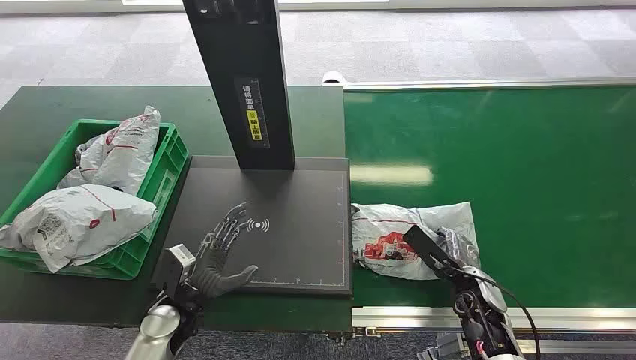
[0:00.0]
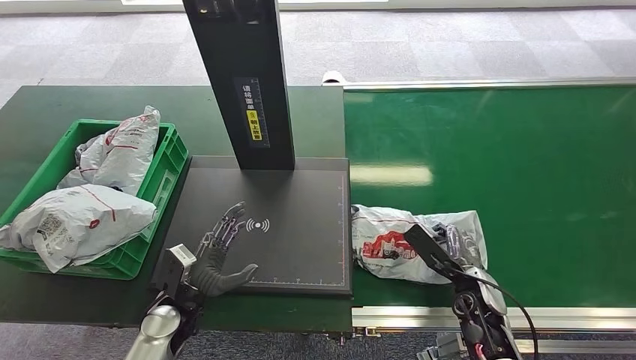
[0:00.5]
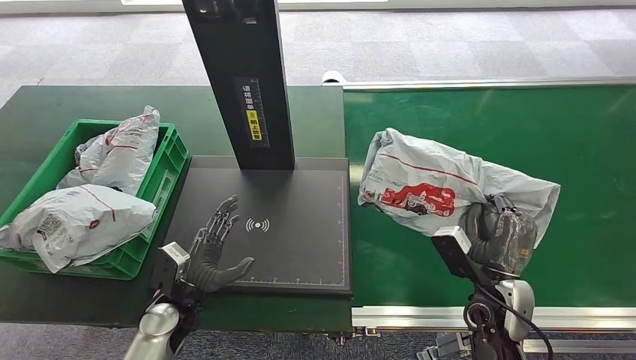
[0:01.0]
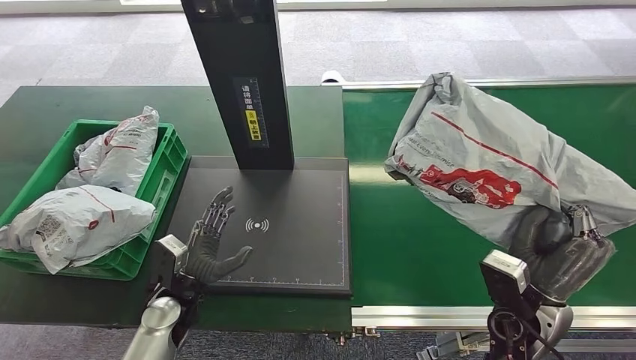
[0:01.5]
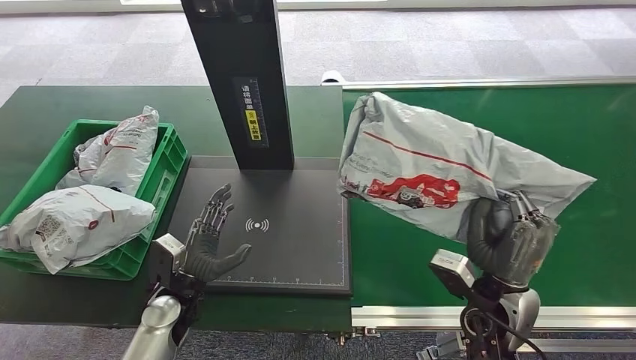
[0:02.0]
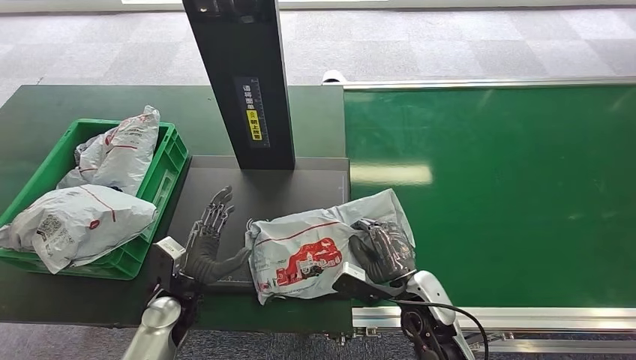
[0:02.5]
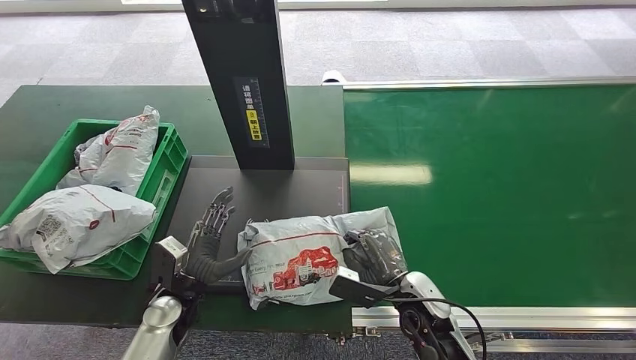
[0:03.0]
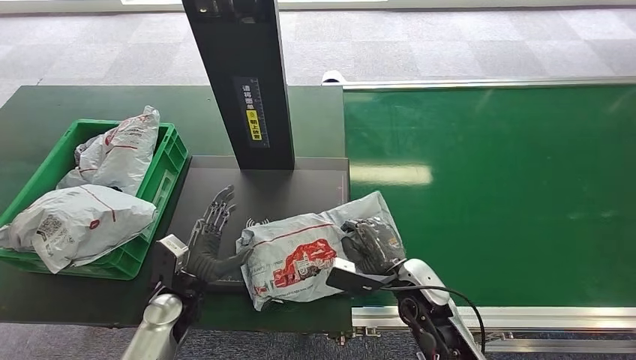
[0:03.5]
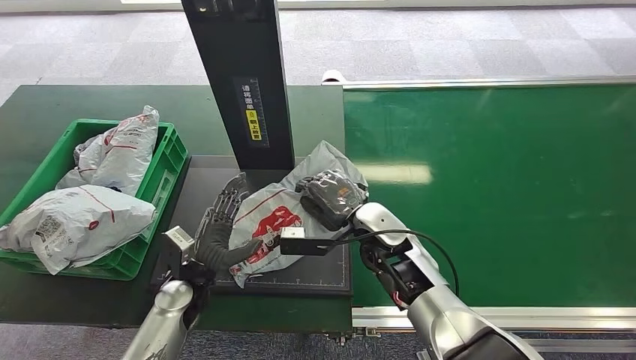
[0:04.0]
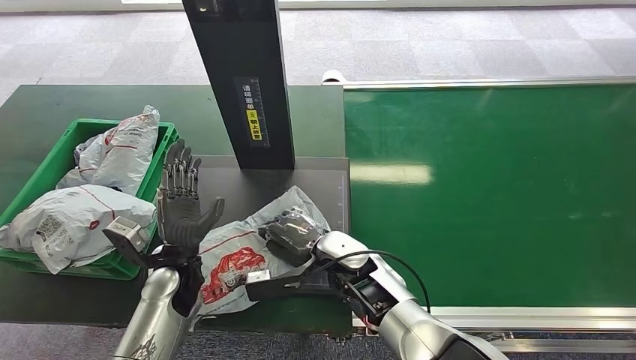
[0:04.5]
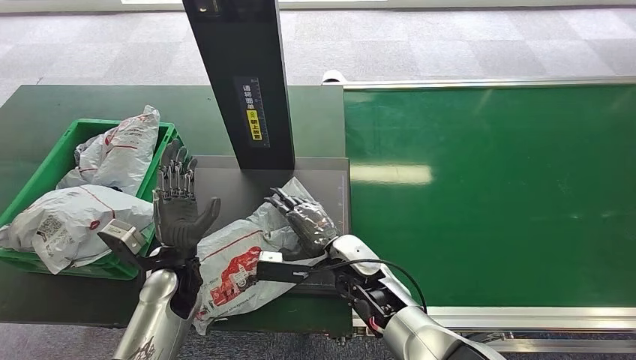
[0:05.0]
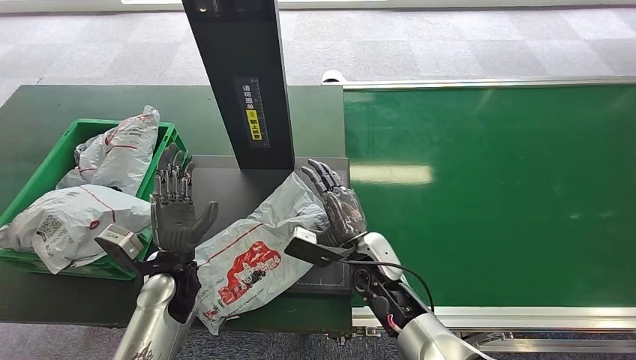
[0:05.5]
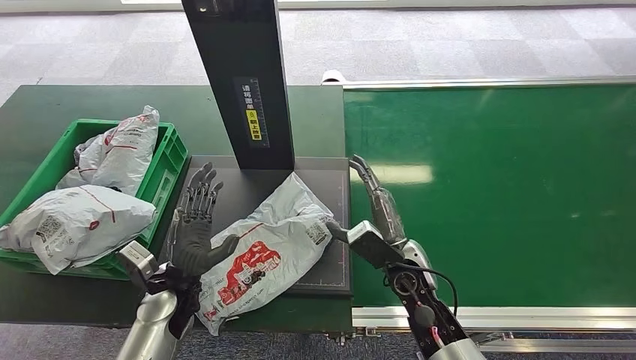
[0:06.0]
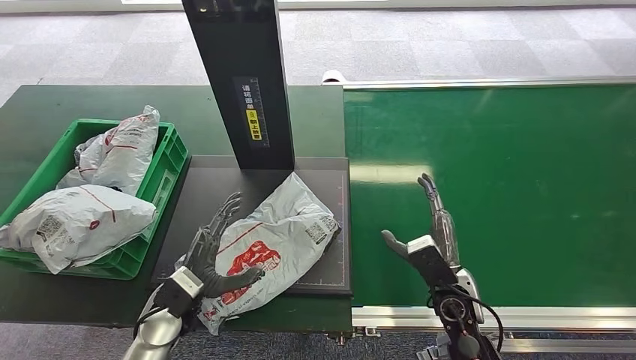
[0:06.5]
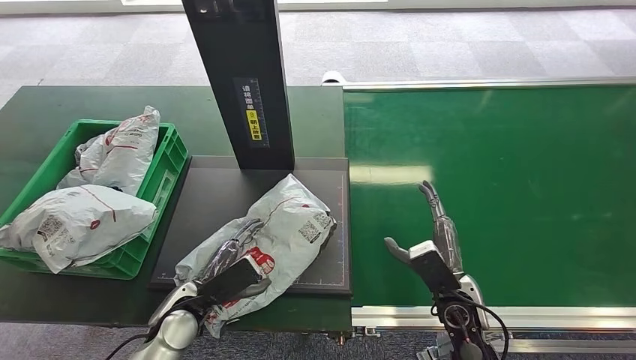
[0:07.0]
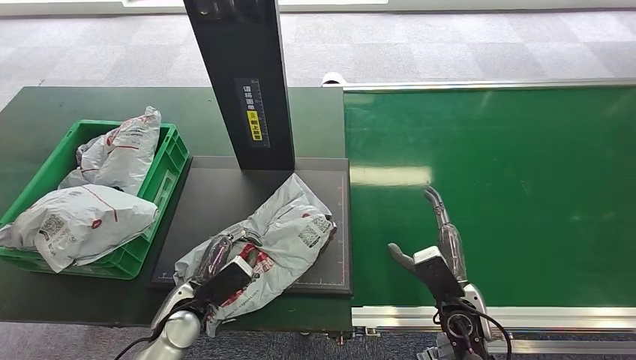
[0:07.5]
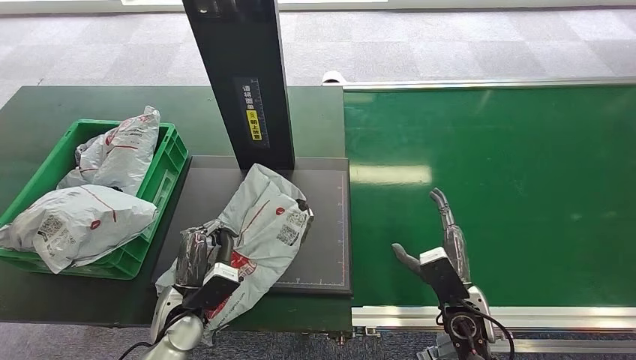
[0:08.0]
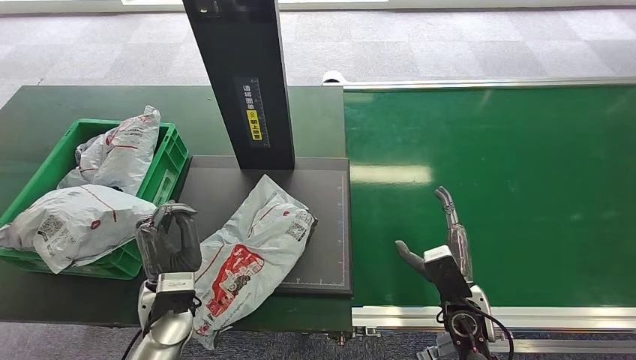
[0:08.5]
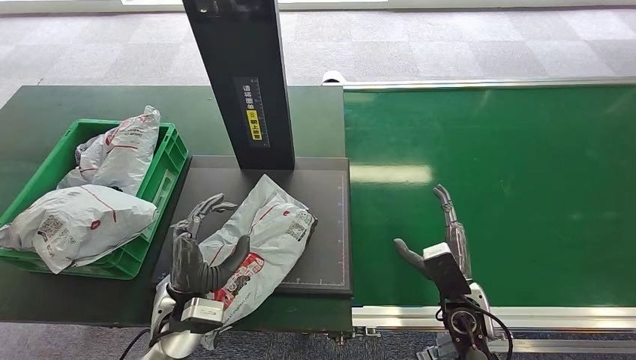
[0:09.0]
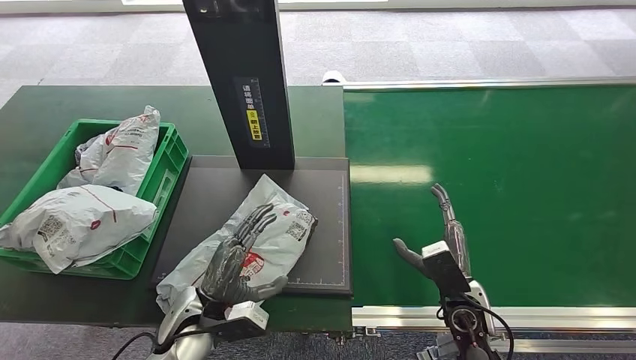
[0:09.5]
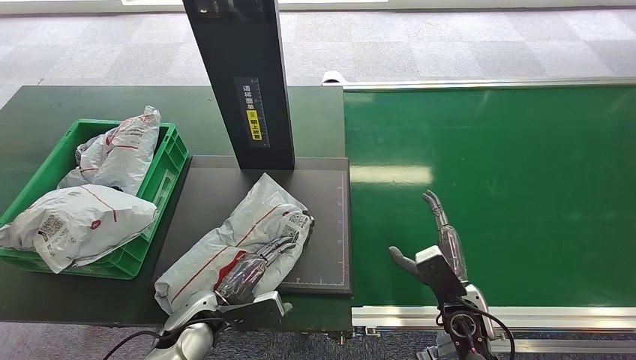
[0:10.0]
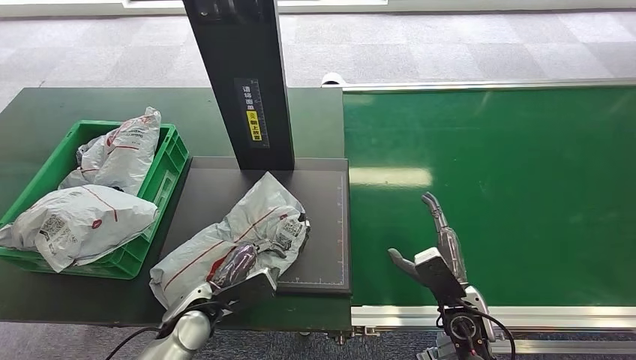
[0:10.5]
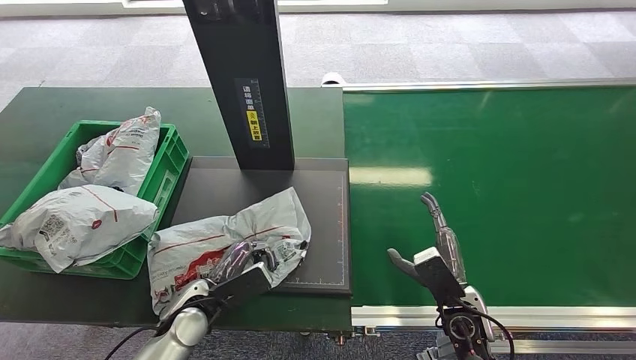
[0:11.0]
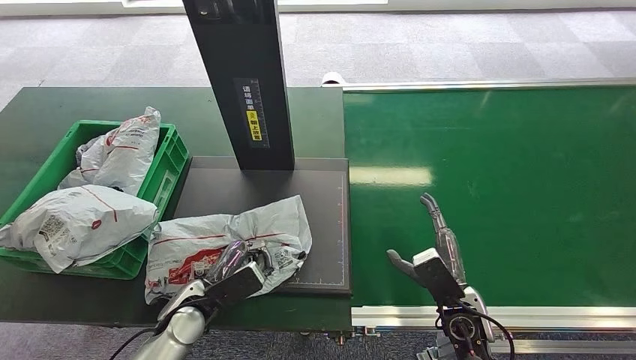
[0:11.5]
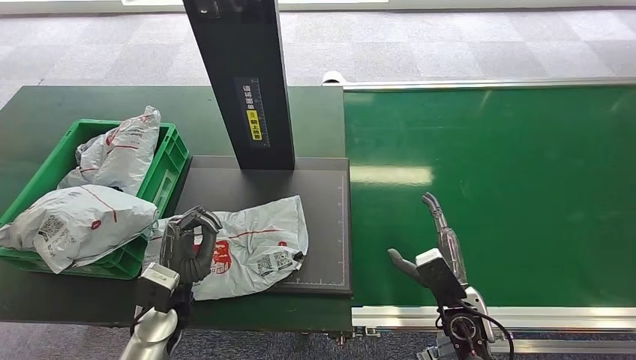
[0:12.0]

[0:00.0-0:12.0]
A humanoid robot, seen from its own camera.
Step, 0:00.0 to 0:01.0: Pick up the package from the conveyor belt.
Step, 0:01.5 to 0:04.0: Place the package onto the inbound machine.
0:04.0 to 0:06.0: The right hand shifts roughly 5 cm backward.
0:06.0 to 0:08.0: The right hand is displaced to the right and backward by approximately 10 cm.
0:10.0 to 0:12.0: The left hand changes place by approximately 5 cm.

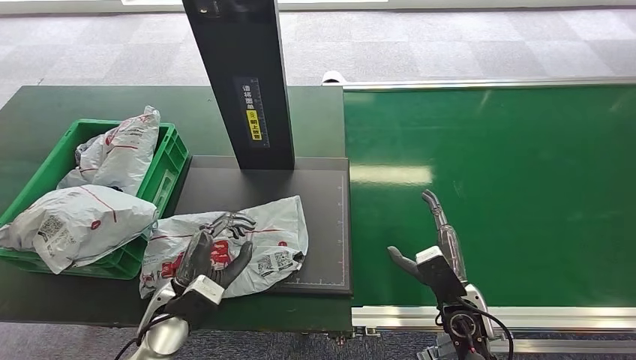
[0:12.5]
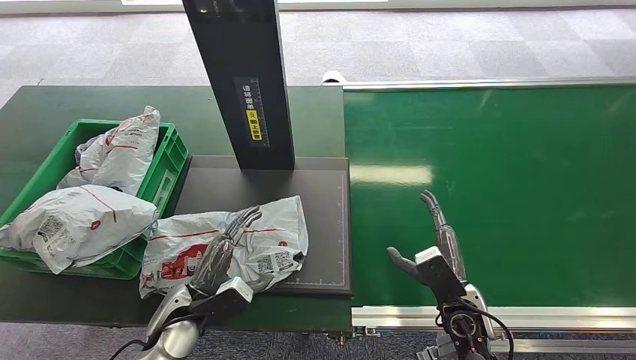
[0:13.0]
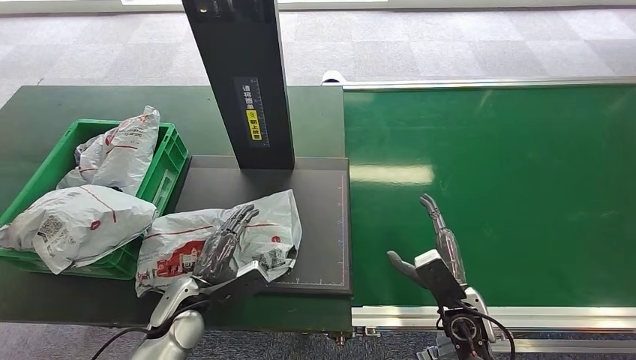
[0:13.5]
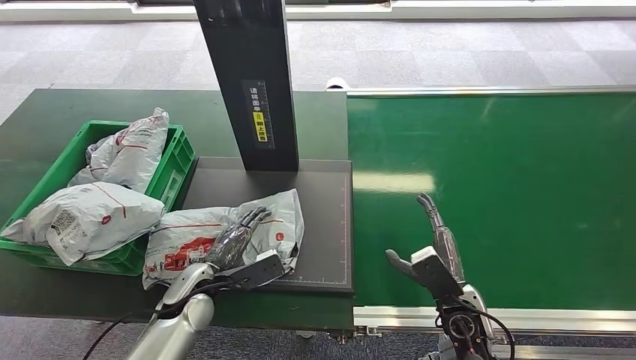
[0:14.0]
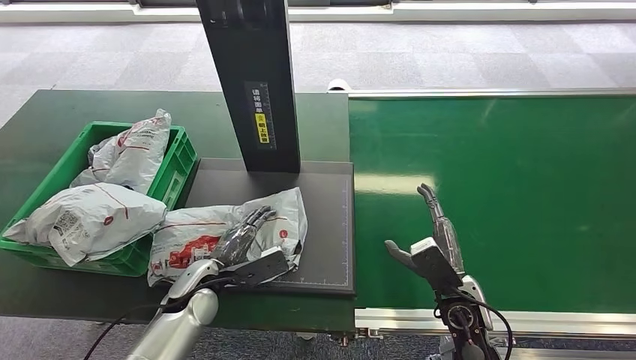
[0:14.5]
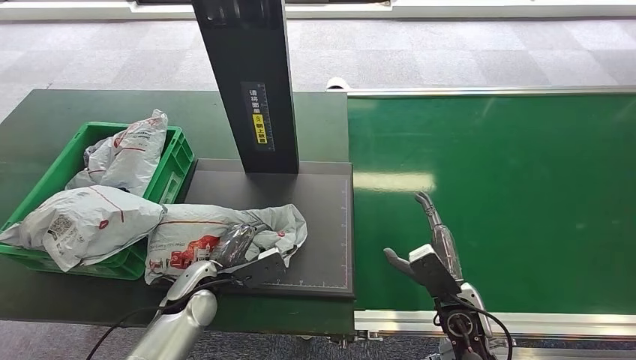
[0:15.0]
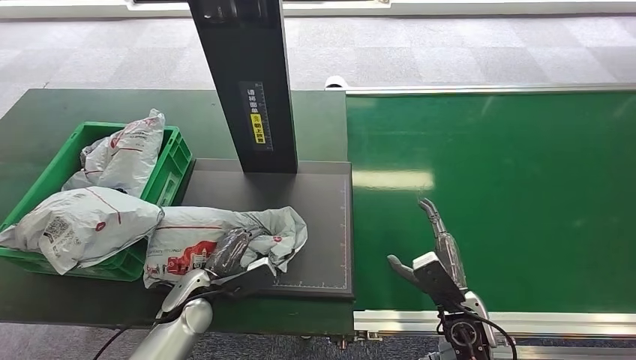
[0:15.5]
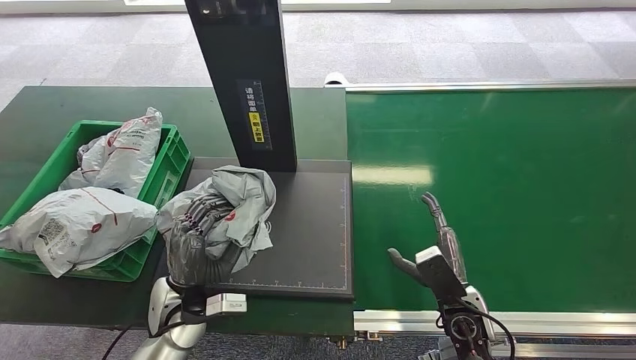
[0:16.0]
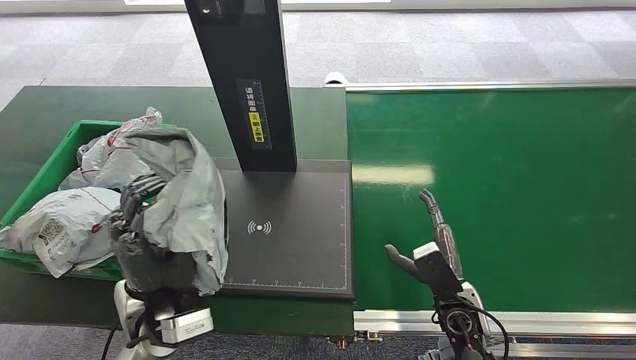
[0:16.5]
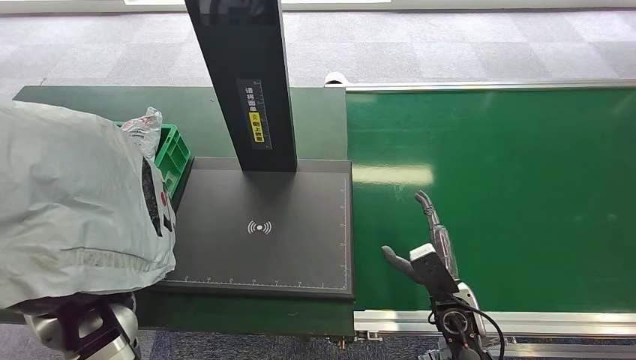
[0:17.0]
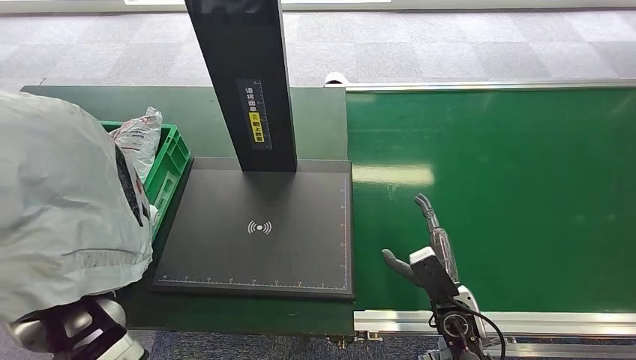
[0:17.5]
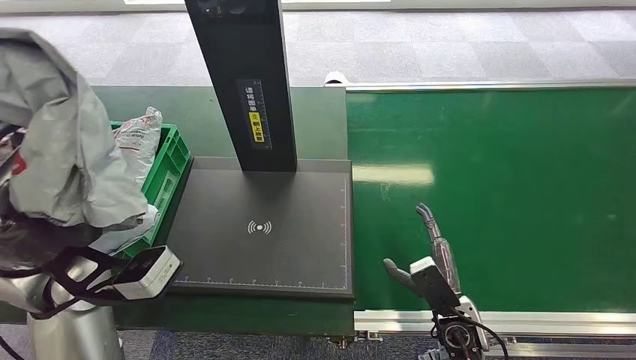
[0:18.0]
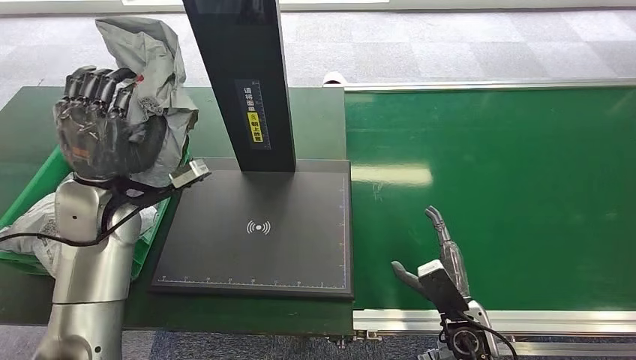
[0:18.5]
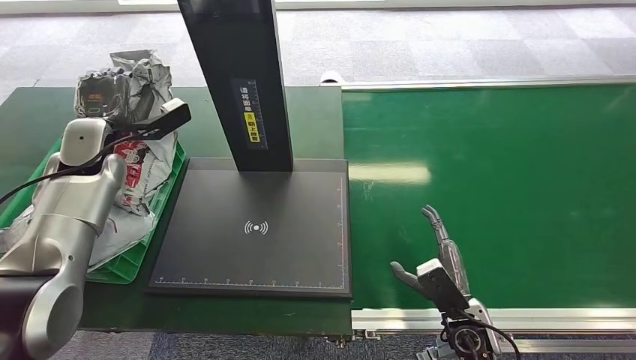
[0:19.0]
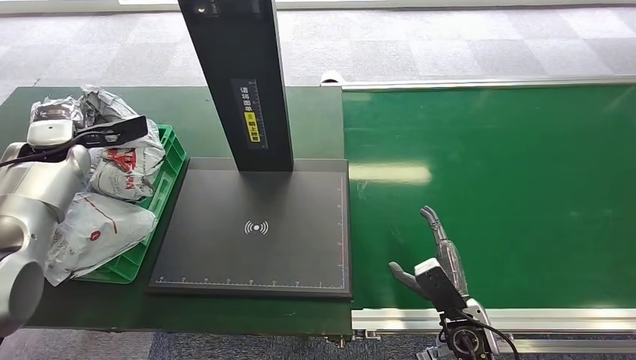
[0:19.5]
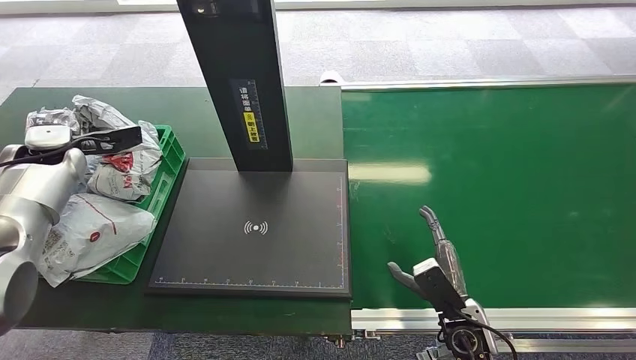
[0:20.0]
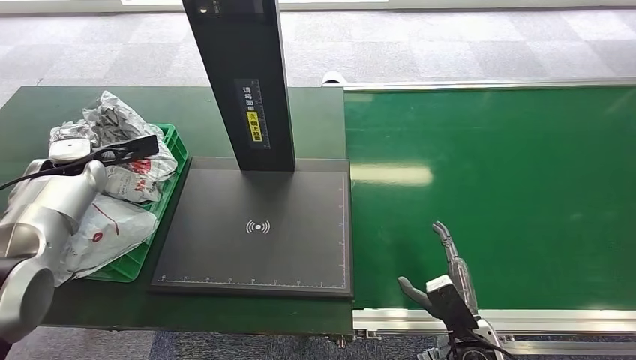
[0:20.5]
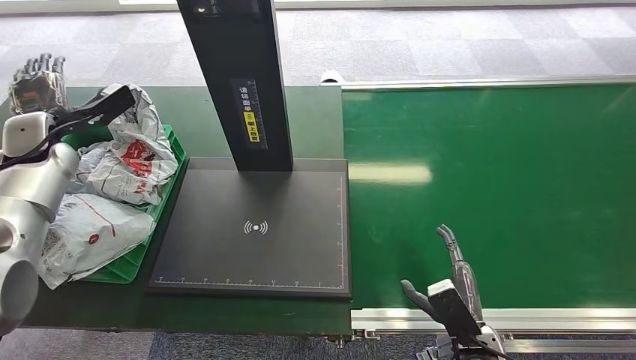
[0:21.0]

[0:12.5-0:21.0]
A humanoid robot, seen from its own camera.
Step, 0:12.5 to 0:18.0: Pick up the package from the inbound machine.
Step, 0:18.5 to 0:21.0: Place the package into the parcel locker.
0:19.0 to 0:21.0: The left hand shifts approximately 10 cm to the left.
